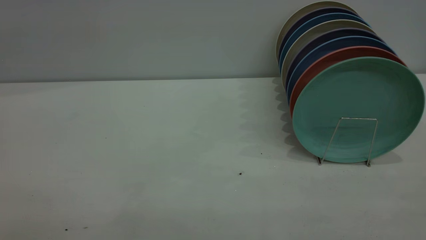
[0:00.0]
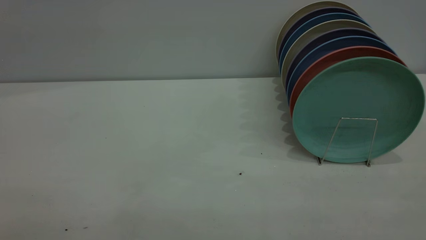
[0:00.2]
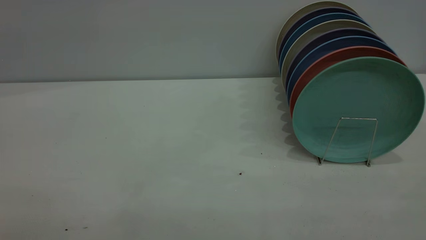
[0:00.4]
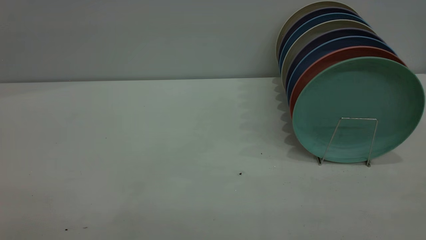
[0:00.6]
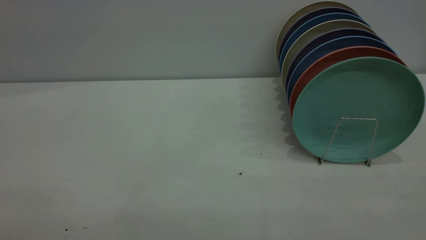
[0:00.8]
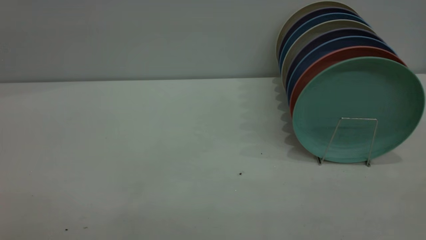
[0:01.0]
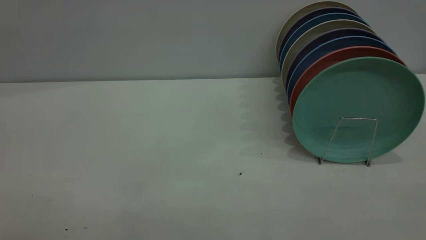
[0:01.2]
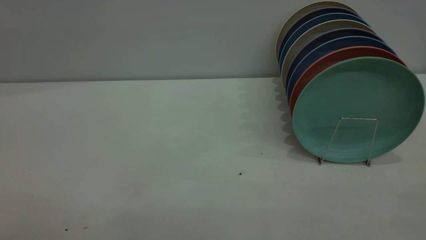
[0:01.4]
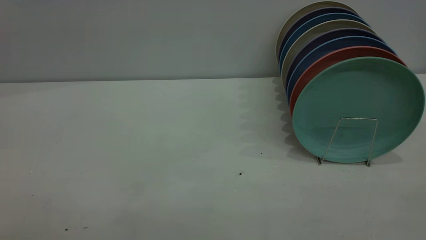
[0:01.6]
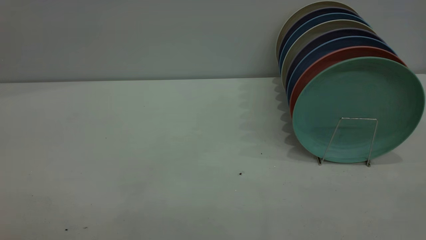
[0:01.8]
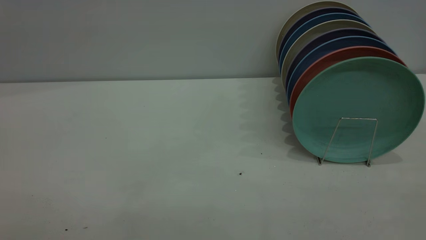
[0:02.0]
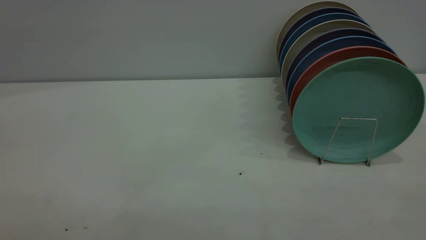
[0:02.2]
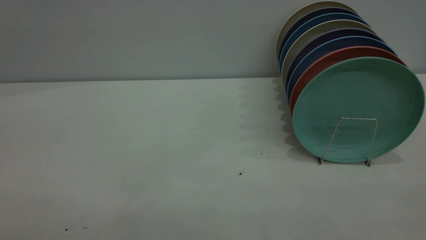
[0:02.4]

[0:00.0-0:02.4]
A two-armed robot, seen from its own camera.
Task of the whole recording: the left gripper grasp the green plate, the left gripper pass the green plate to the right gripper, and the right gripper place the green plate on the plate rack.
1.2 to 2.4 s: Neither gripper changes place.

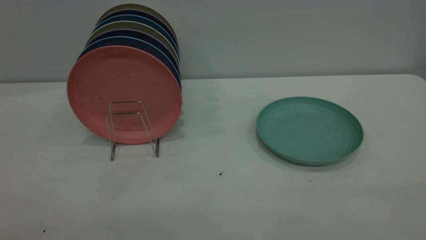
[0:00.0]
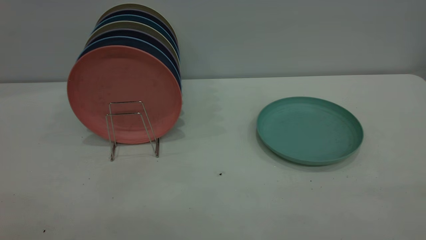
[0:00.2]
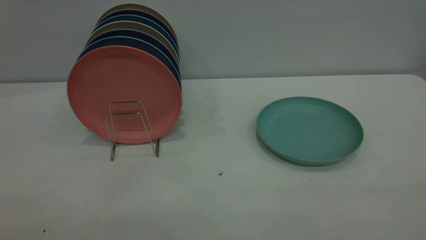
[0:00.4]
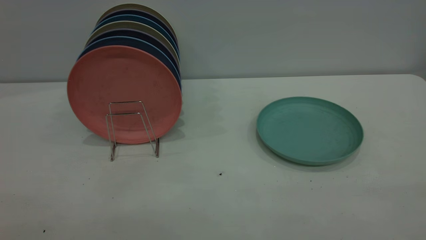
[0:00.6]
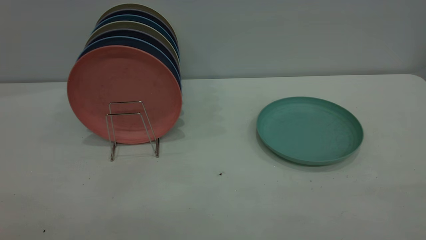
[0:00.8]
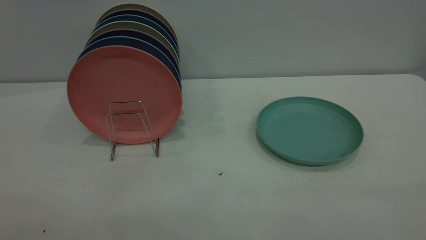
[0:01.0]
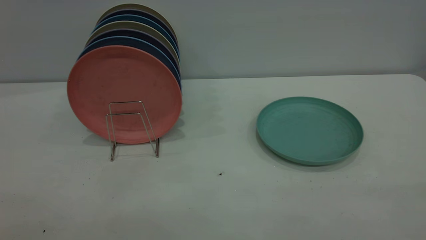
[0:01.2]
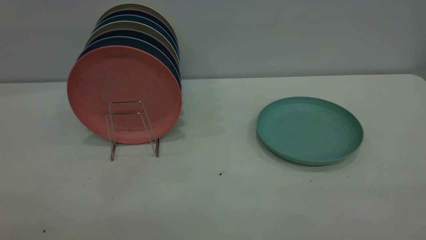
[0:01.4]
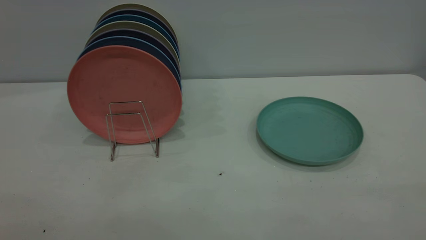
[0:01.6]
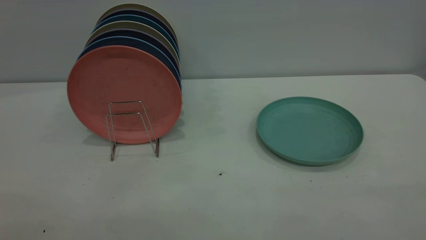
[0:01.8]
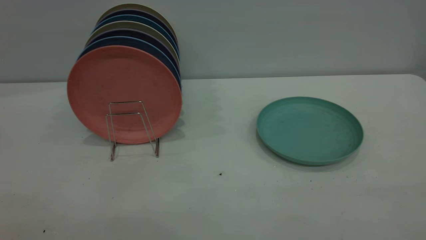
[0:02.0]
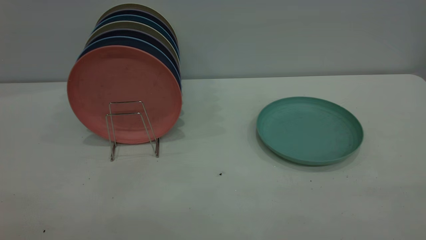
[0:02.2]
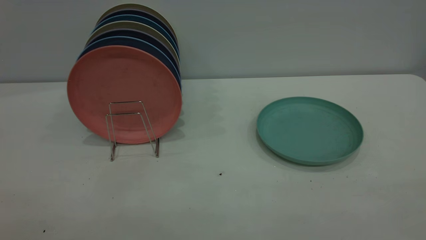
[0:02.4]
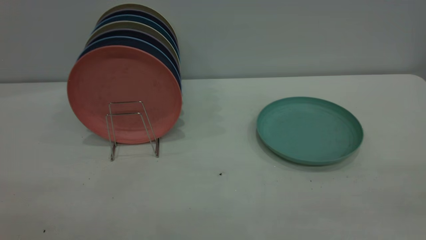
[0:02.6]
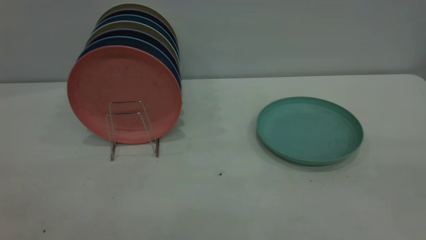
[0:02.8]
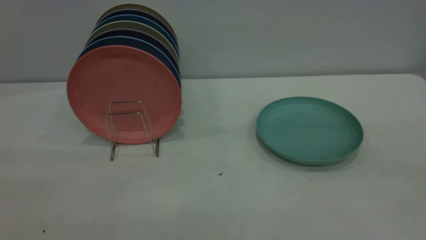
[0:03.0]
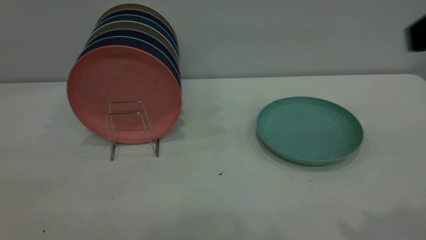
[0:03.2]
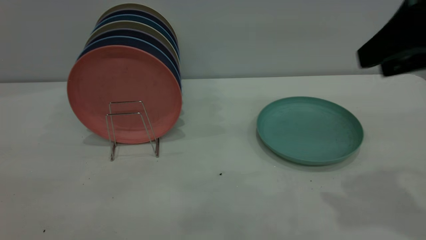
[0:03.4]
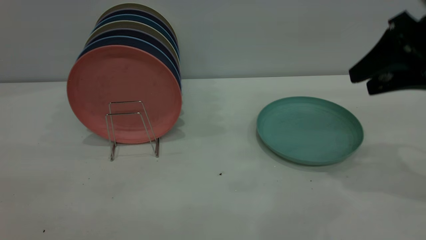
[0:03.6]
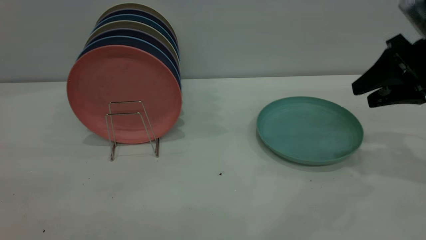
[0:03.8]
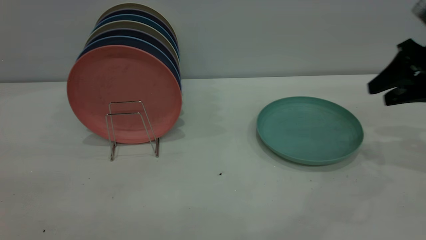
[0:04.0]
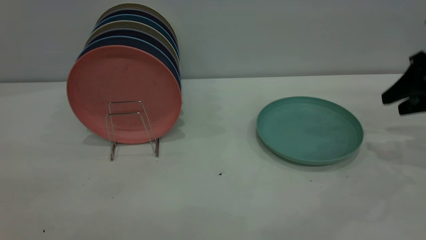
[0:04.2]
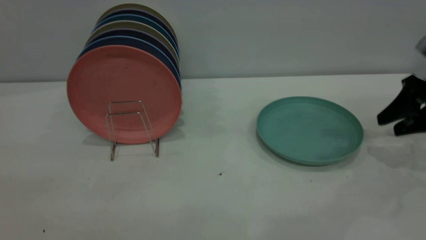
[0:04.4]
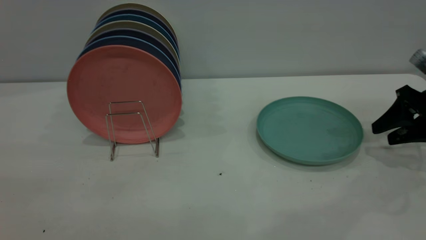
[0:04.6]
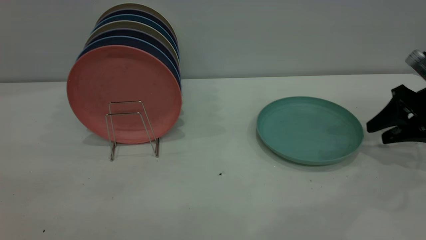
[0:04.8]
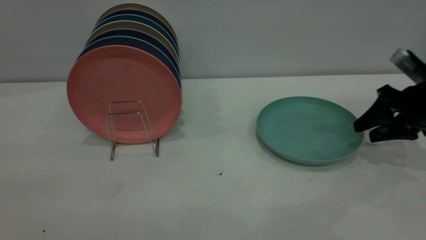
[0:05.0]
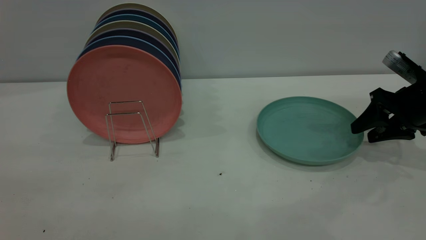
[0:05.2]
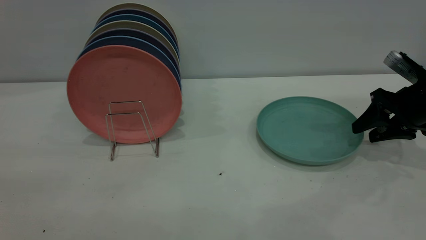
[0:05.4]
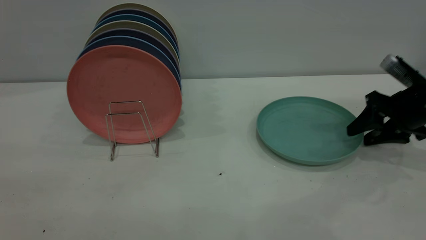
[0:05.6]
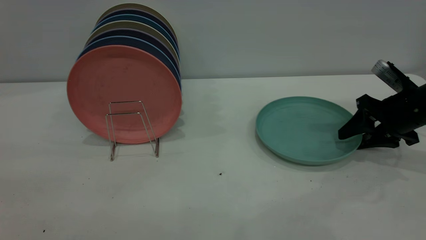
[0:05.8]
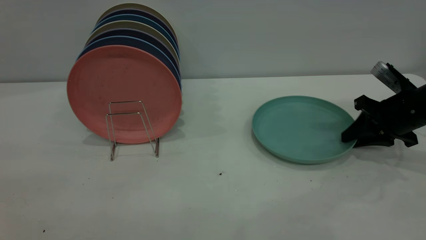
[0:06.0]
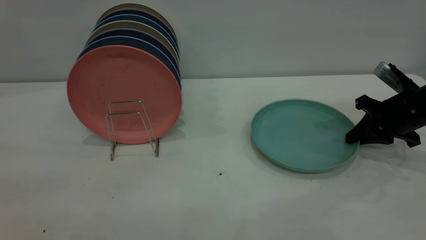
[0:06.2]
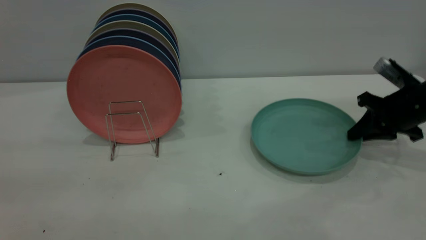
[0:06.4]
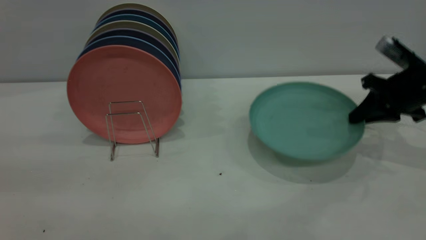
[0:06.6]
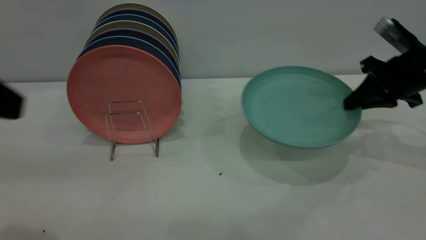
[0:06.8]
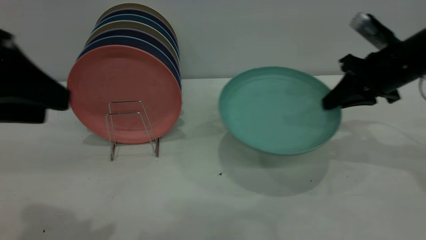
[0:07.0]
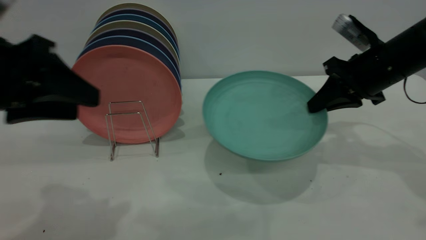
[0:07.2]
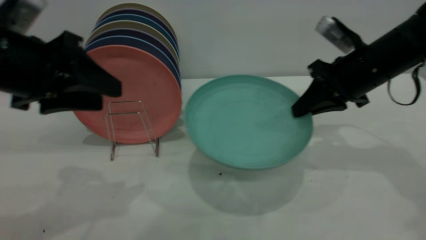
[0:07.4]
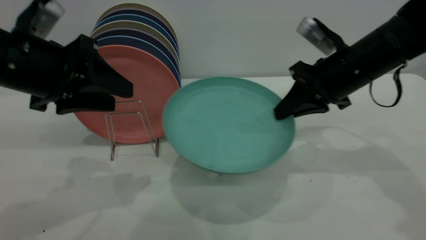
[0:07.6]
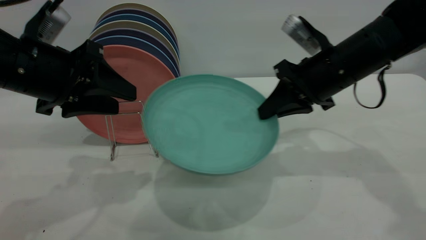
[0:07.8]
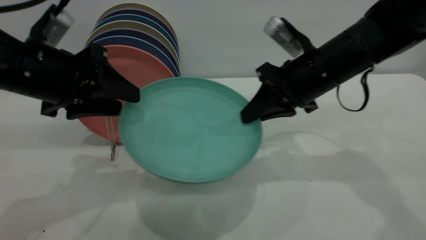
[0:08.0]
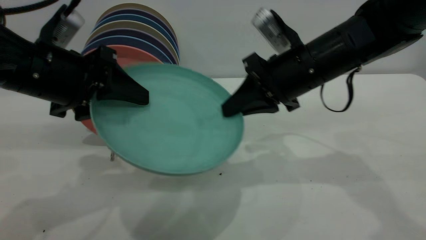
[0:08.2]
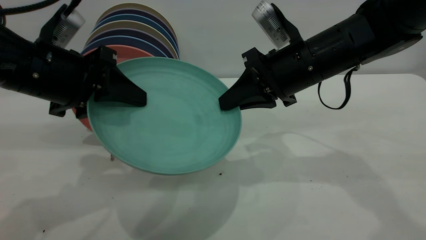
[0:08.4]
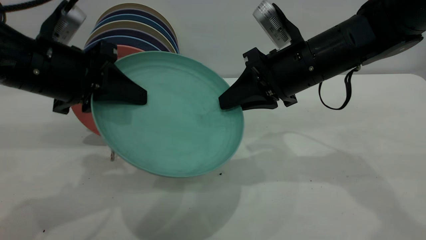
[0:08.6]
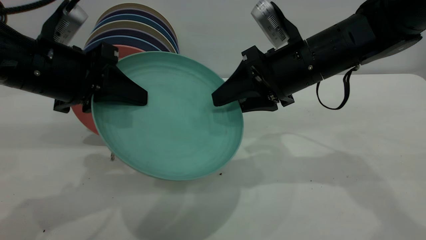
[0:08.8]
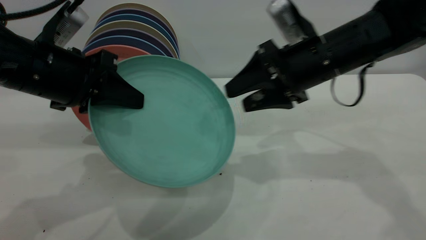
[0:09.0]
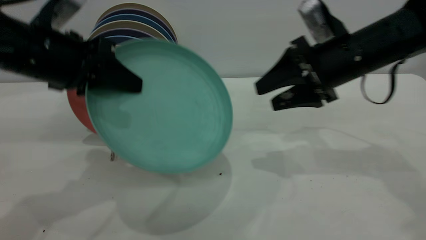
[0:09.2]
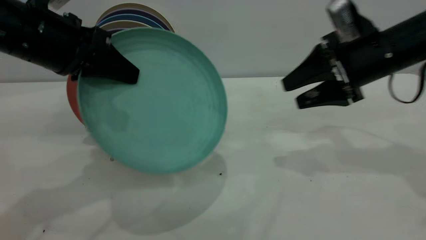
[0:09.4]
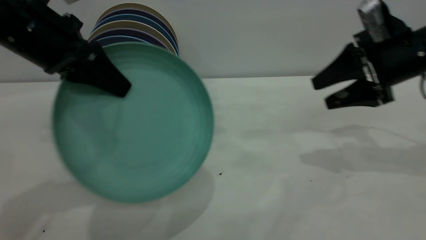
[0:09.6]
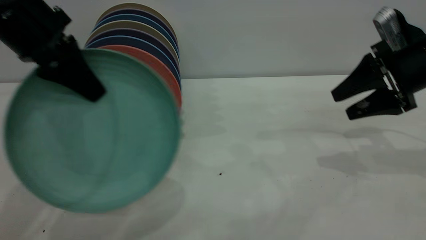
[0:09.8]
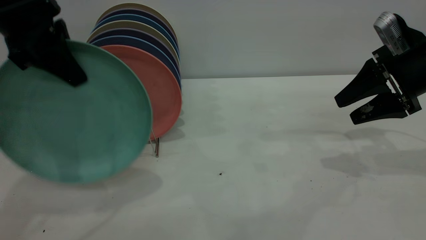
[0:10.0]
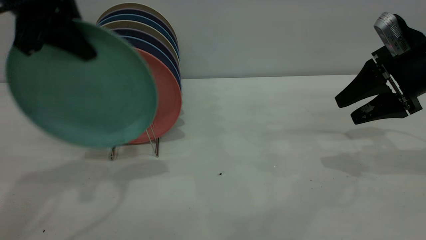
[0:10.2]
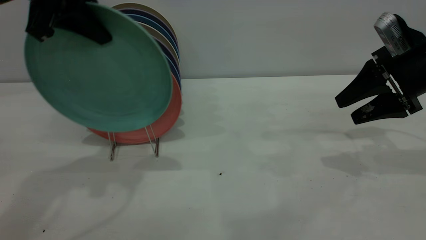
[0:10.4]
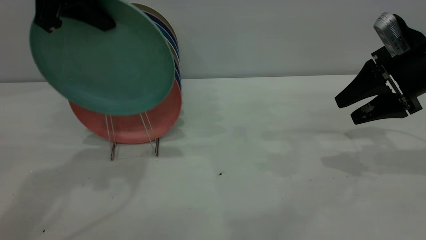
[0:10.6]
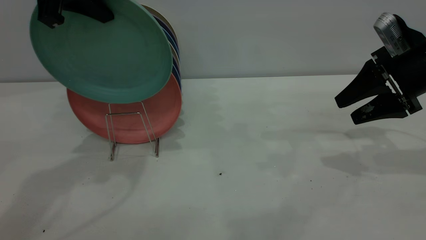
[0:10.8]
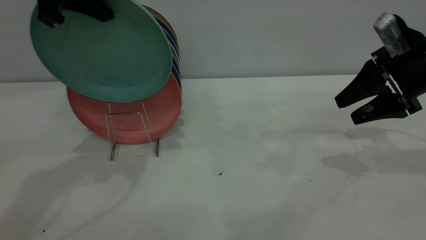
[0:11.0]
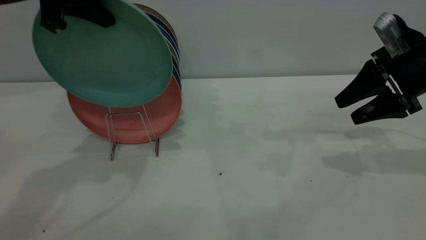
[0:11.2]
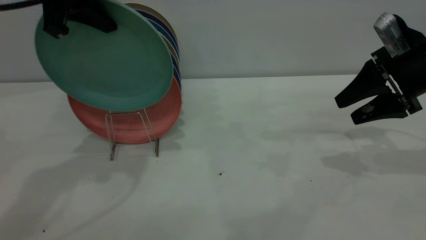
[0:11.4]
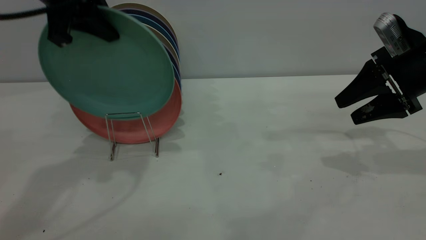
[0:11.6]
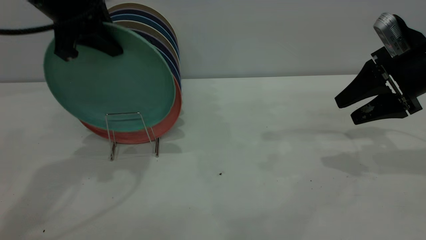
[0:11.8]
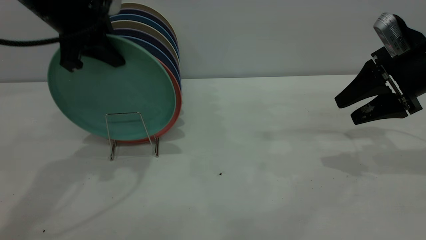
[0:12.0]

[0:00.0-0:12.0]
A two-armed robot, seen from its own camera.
Task of the whole recording: the right gripper grasp the green plate, the right gripper pass the green plate to the left gripper, and the left gripper place the green plate on the plate rack.
Step, 0.0 to 6.4 s: Pick up the plate with the right gripper.
Step, 6.8 to 8.8 s: Pass the plate from the right gripper to the left gripper.
0.0 to 1.6 s: Both grippers stay about where they are.
3.0 to 4.4 s: The right gripper moves forward, downward and to the right, approximately 35 cm.
4.4 to 6.0 s: The right gripper shifts by roughly 5 cm, and closes up.
6.0 to 7.6 s: The left gripper shifts about 25 cm forward and downward. The right gripper heads to the left and upward, covering roughly 15 cm.
7.6 to 9.0 s: The left gripper closes up. Meanwhile the right gripper opens its fingers.
9.0 to 10.4 s: The left gripper is displaced upward and forward by some 15 cm. Meanwhile the right gripper is displaced to the right by roughly 15 cm.
10.4 to 12.0 s: The left gripper goes about 5 cm downward.

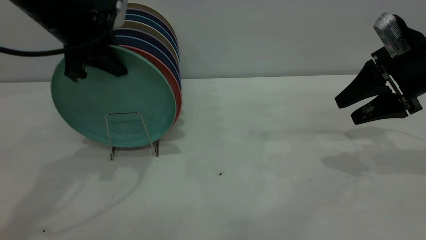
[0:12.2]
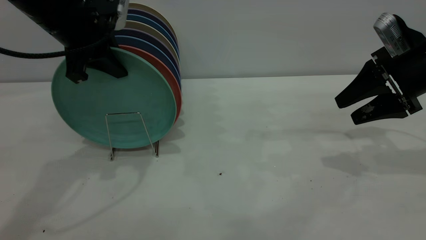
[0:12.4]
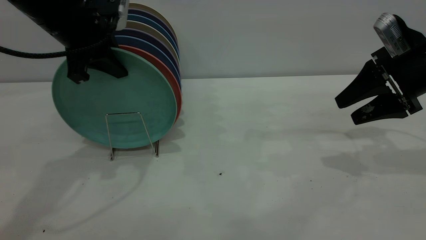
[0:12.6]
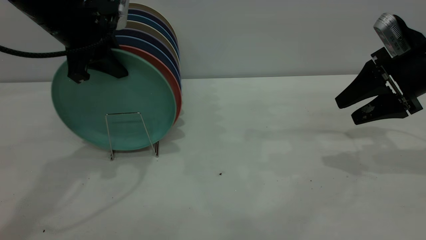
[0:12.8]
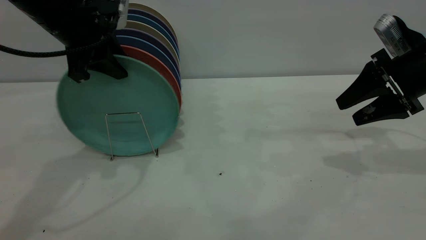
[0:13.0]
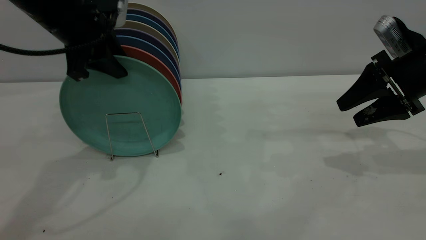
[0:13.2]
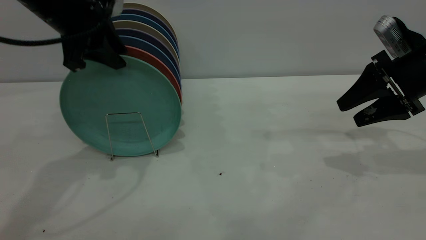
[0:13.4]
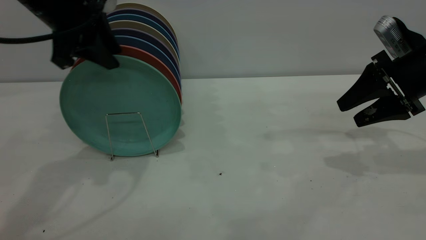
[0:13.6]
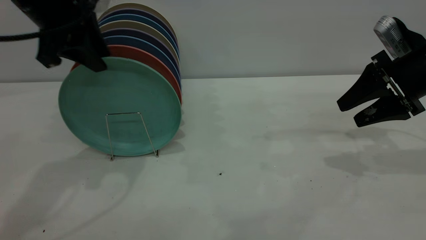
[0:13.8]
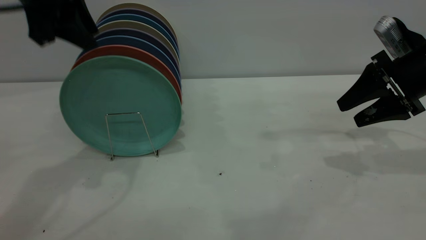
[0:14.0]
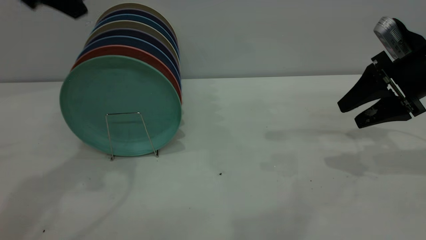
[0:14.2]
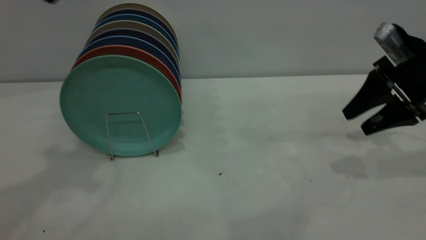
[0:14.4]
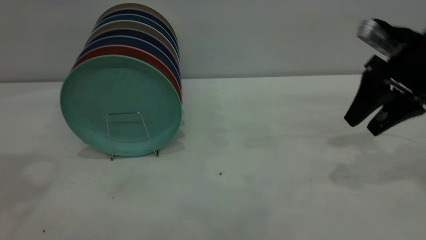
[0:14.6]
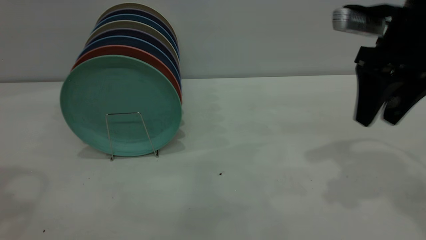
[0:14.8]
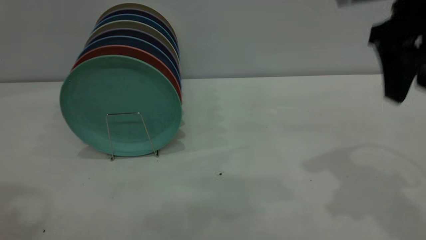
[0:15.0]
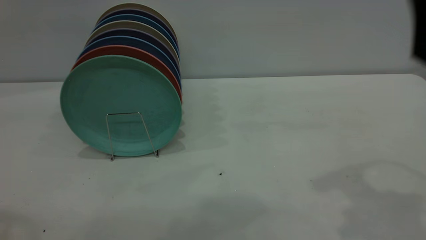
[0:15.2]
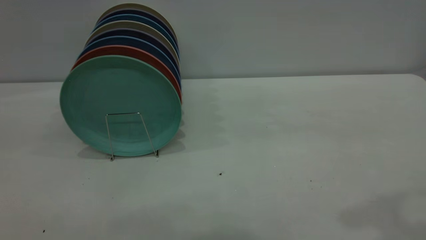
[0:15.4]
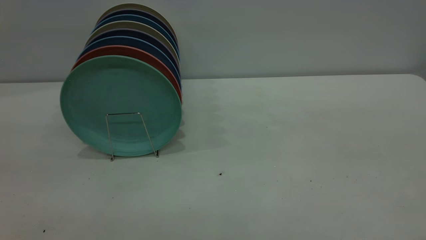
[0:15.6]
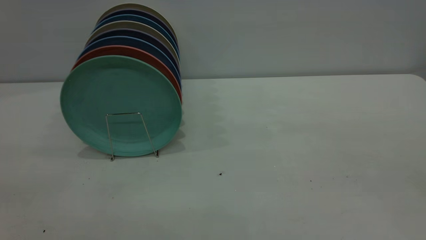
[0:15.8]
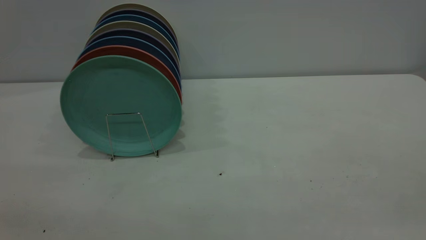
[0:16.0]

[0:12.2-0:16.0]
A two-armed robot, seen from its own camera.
Task of the whole recording: the right gripper grasp the green plate, the right gripper pass the green plate to the left gripper, and the left gripper place the green plate on the plate rack.
12.2 to 13.4 s: The left gripper opens.
13.4 to 14.8 s: The left gripper travels upward, backward and to the left by approximately 25 cm. The right gripper travels upward and to the left by about 10 cm.
14.8 to 16.0 s: The right gripper heads backward and upward, covering some 35 cm.
